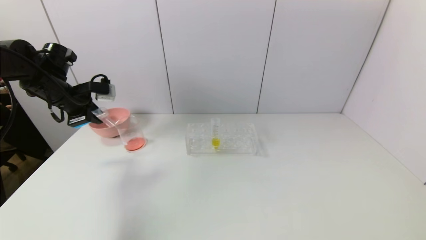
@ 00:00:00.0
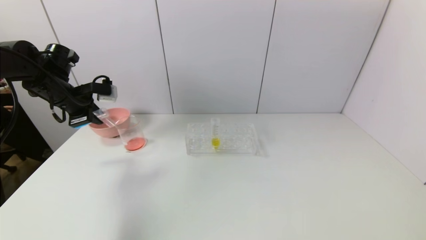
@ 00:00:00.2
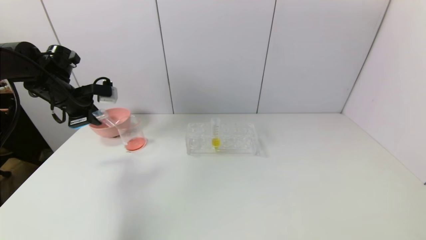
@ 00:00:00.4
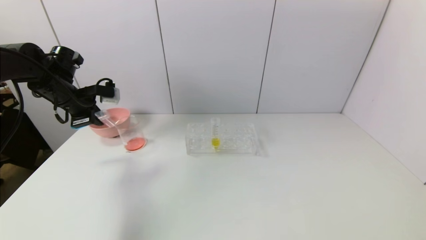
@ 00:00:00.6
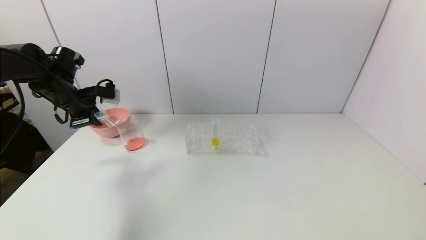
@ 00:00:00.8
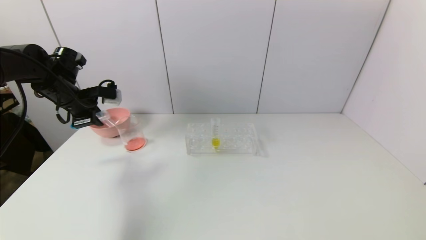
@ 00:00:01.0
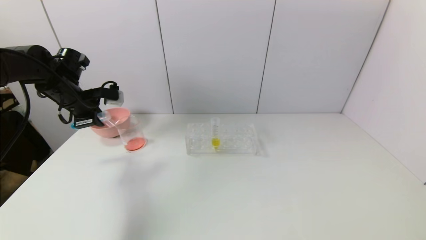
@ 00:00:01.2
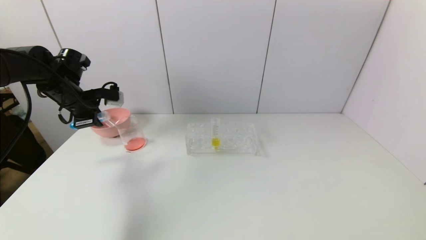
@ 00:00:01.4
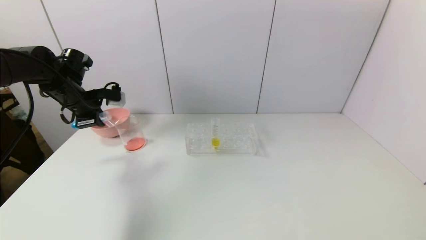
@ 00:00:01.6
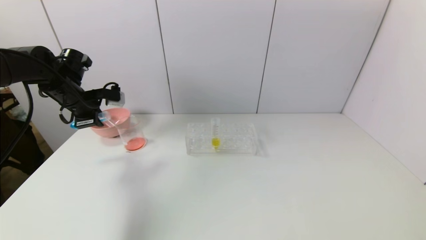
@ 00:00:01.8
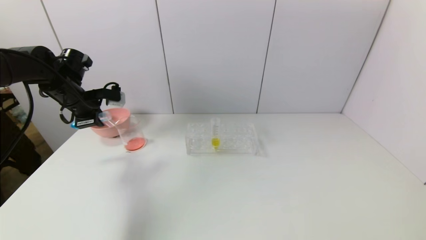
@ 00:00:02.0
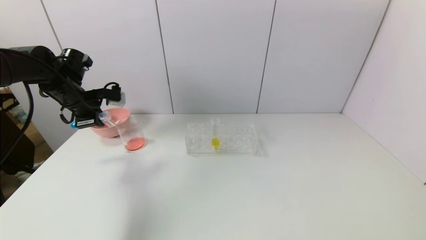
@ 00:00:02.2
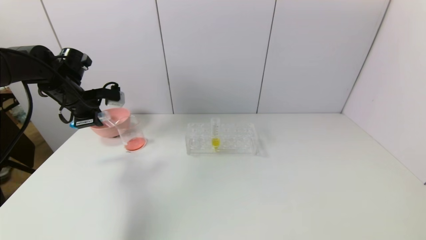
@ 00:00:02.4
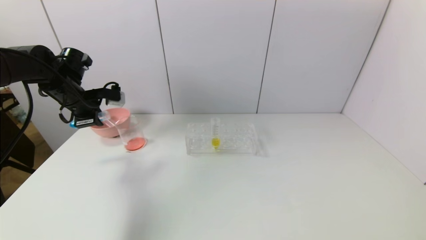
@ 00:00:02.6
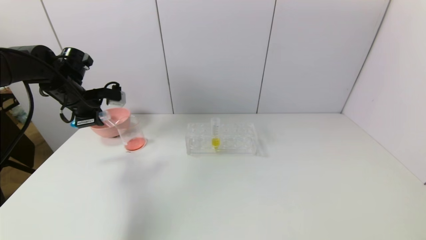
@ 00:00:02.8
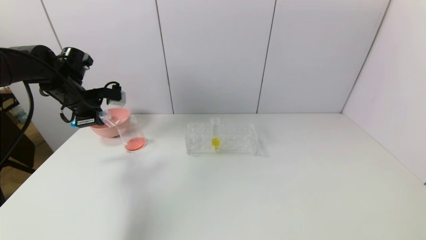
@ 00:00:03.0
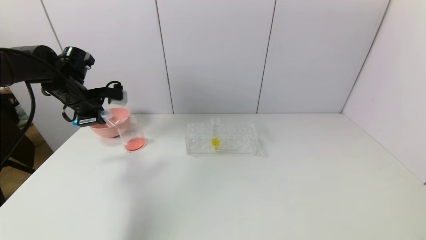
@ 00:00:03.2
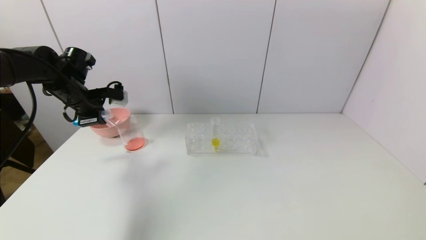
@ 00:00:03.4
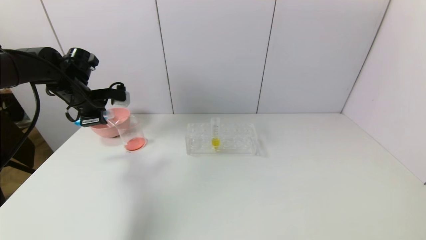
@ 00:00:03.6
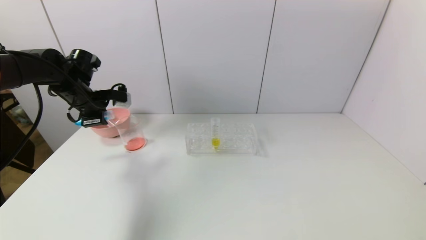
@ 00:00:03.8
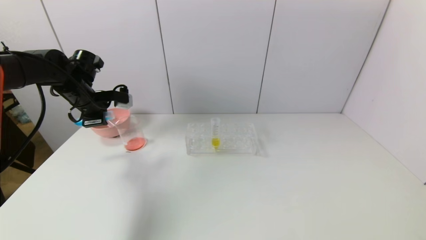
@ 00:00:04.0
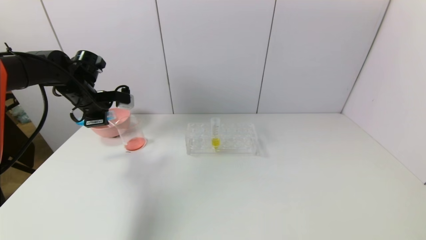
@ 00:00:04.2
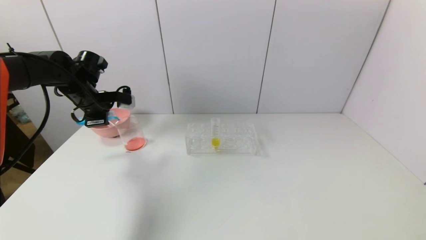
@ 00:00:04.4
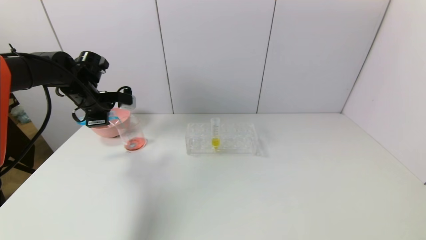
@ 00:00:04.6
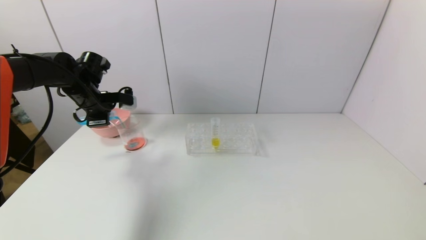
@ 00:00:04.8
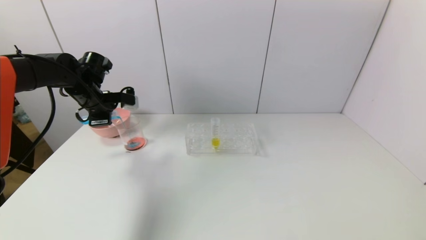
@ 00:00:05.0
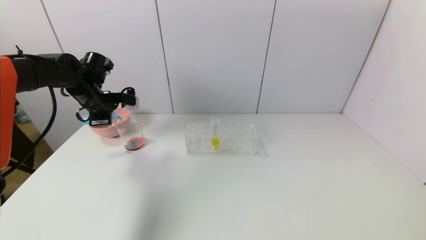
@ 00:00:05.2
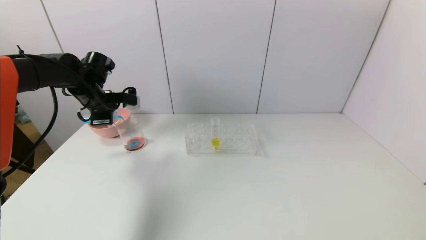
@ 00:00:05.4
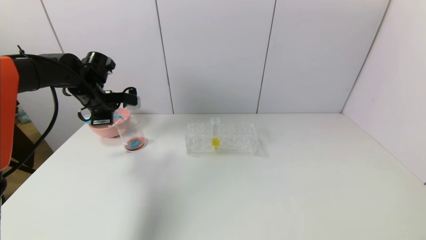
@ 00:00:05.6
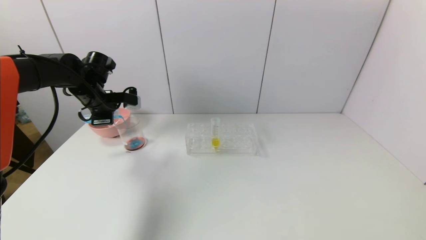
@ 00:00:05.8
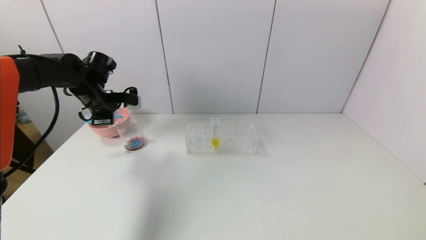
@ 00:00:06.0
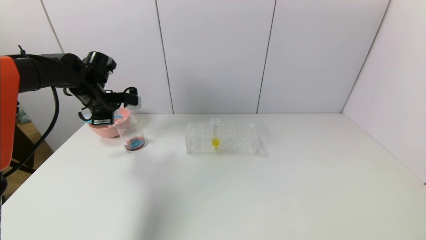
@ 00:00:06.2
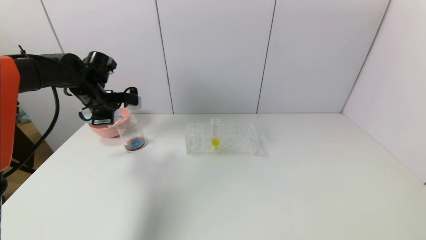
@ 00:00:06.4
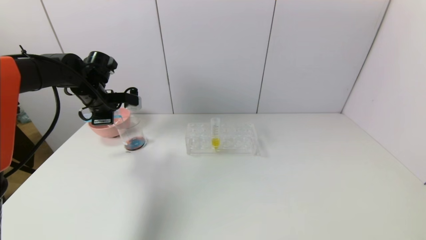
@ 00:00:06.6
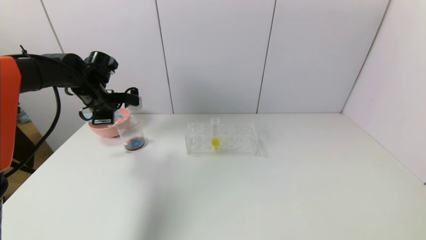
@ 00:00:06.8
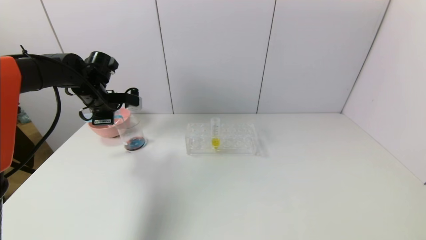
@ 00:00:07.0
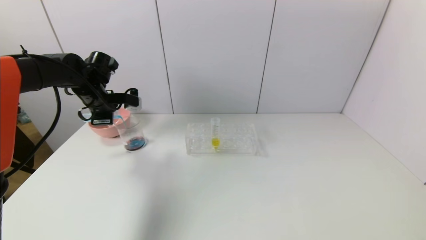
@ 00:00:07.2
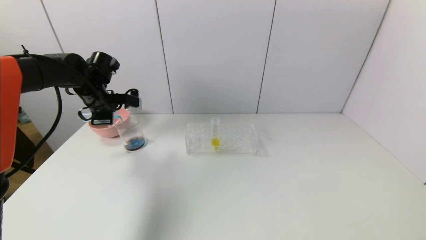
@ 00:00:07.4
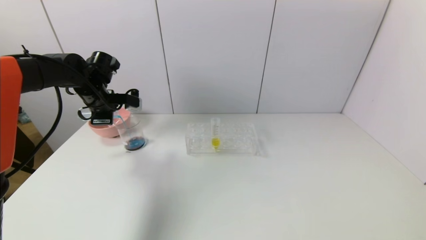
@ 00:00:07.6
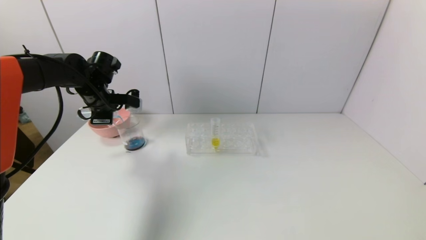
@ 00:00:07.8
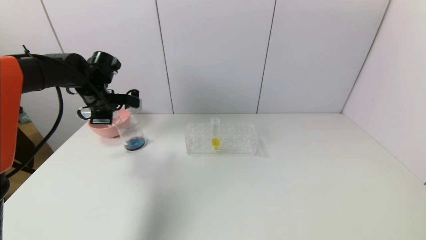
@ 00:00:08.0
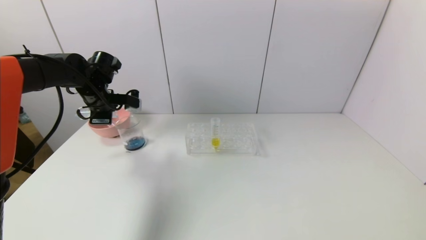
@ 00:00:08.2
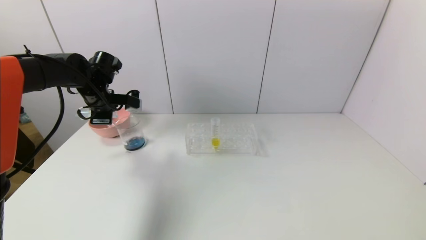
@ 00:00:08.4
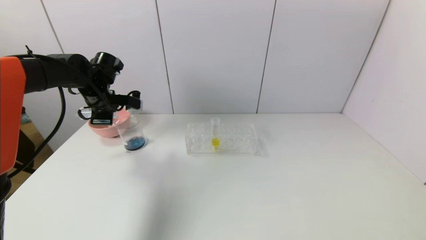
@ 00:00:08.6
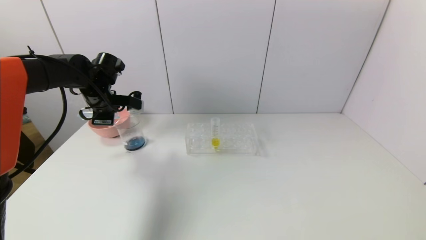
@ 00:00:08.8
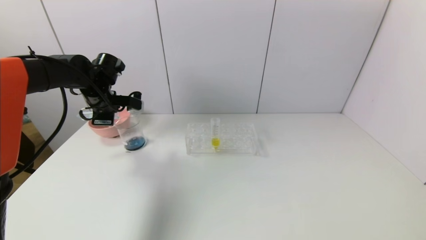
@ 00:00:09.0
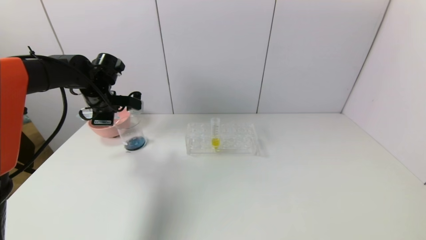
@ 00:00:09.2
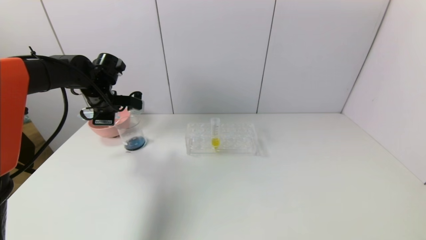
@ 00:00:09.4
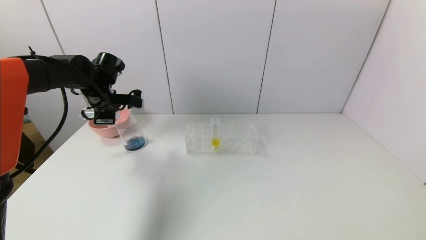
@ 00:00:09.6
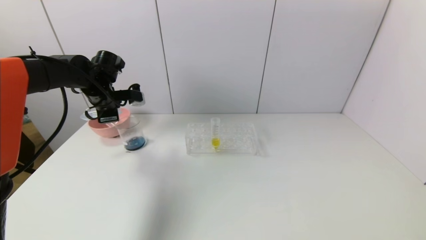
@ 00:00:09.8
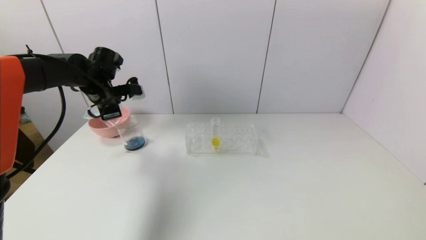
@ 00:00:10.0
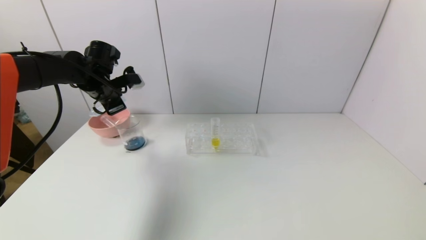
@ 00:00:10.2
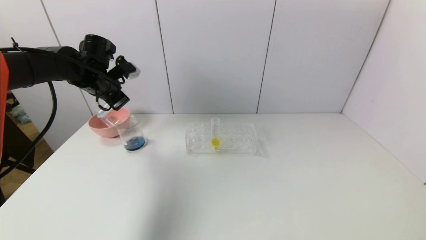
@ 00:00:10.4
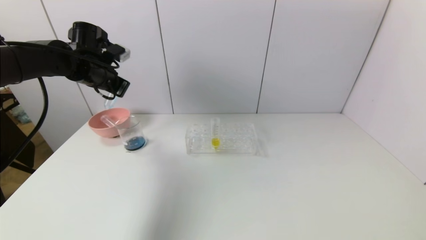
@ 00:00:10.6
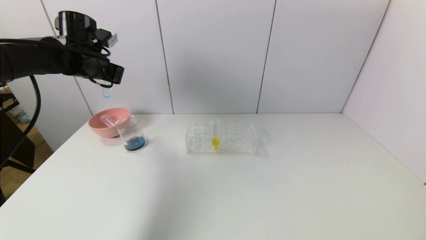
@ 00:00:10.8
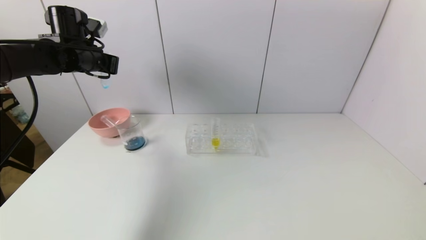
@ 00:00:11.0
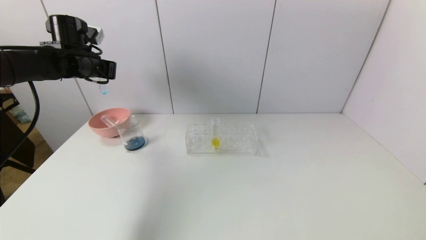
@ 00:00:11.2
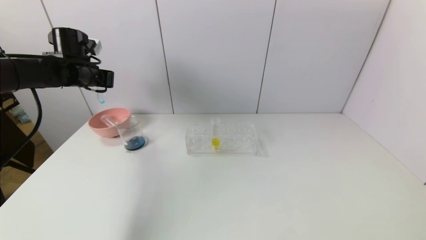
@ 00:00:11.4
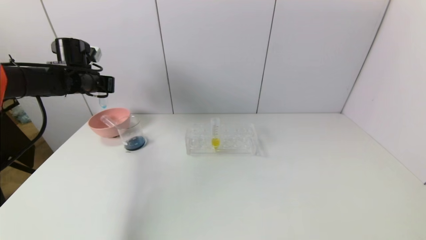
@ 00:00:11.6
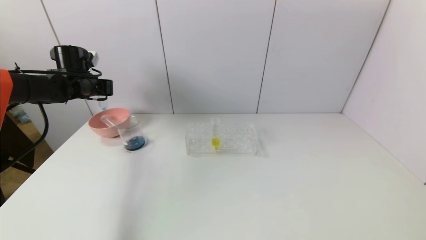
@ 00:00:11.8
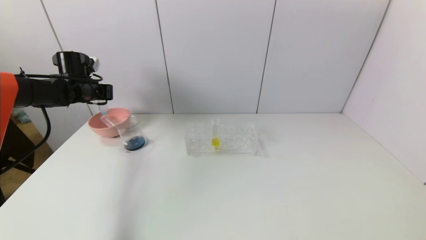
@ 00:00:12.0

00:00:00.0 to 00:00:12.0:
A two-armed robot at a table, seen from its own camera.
Task of the whole recording: pick up the test tube with red pigment and the test tube with blue pigment by grippers and pour them into the container.
Step, 00:00:00.0 to 00:00:10.6: Pour the blue reagent into the graduated cylinder with the left gripper.
00:00:00.0 to 00:00:01.6: The grippers stay close to where they were, moving slightly.
00:00:01.6 to 00:00:03.0: Both grippers stay put.
00:00:03.0 to 00:00:07.6: The grippers move only a little.
00:00:07.6 to 00:00:09.0: Both grippers stay put.
00:00:10.4 to 00:00:12.0: The left gripper heads to the left, covering approximately 10 cm.

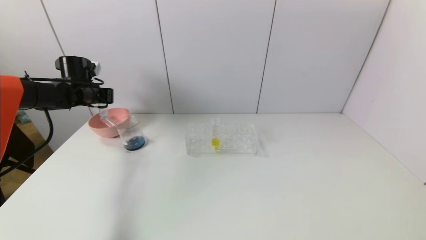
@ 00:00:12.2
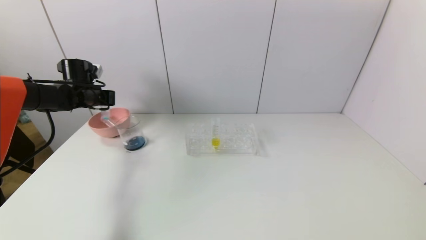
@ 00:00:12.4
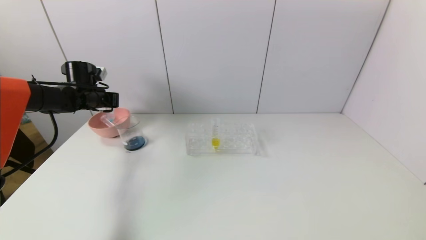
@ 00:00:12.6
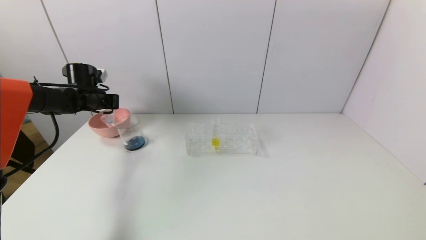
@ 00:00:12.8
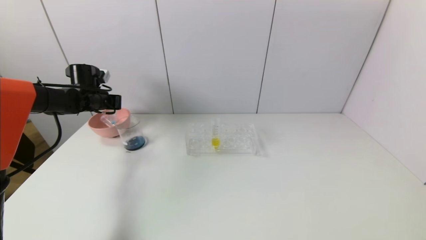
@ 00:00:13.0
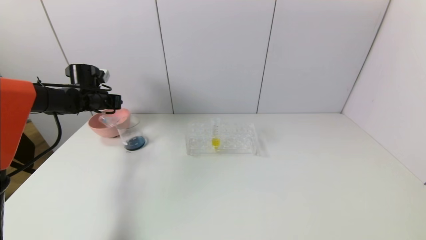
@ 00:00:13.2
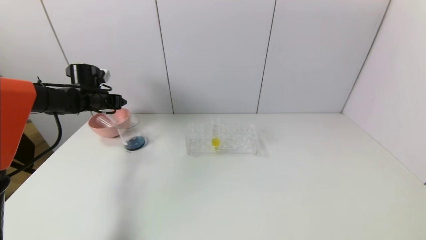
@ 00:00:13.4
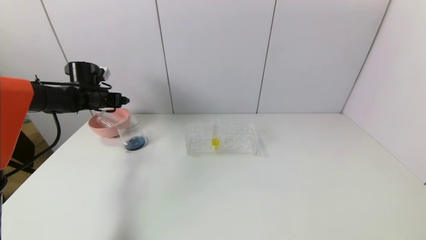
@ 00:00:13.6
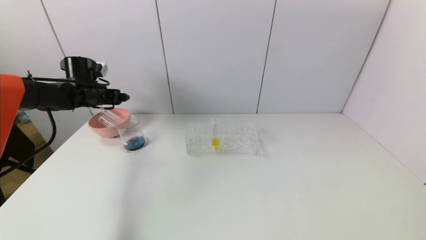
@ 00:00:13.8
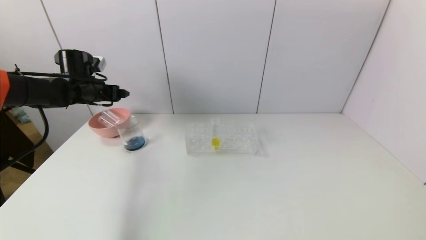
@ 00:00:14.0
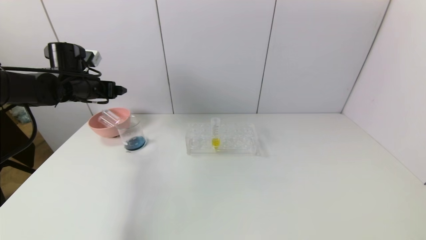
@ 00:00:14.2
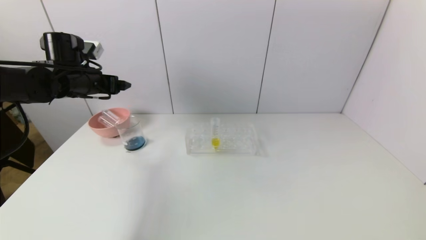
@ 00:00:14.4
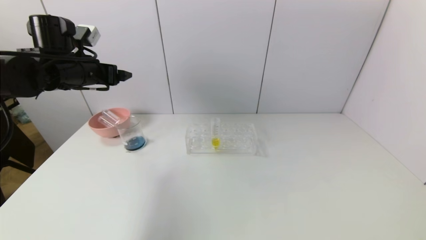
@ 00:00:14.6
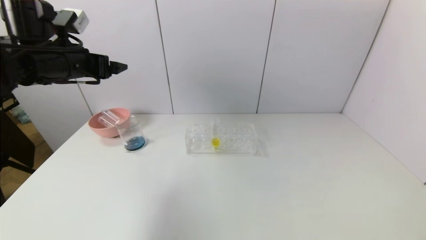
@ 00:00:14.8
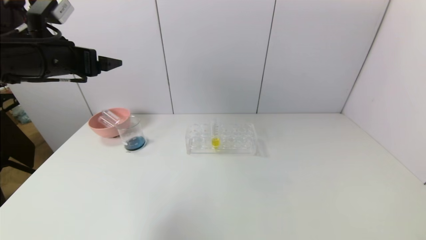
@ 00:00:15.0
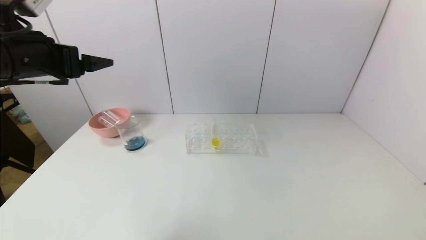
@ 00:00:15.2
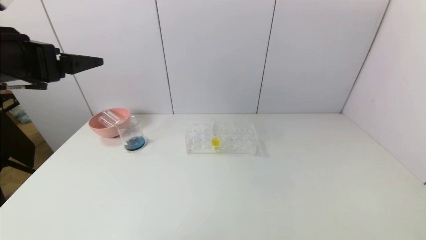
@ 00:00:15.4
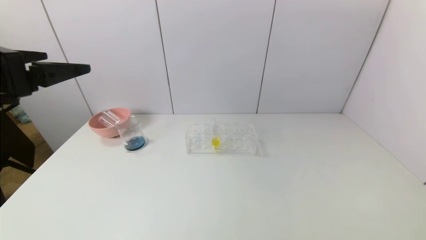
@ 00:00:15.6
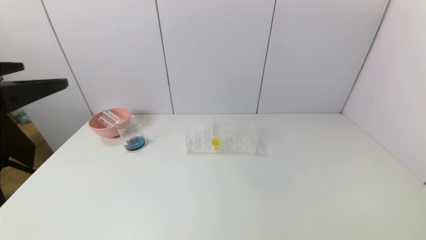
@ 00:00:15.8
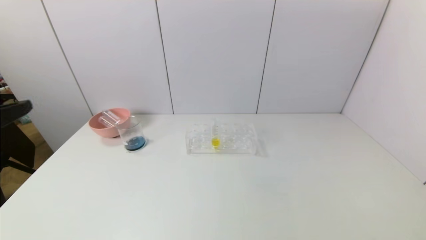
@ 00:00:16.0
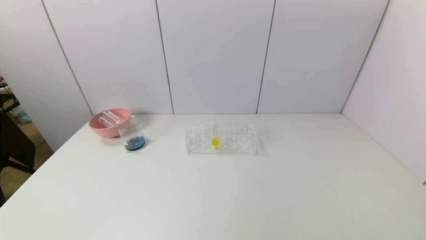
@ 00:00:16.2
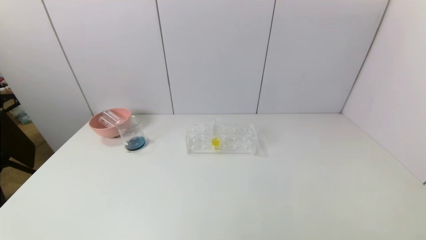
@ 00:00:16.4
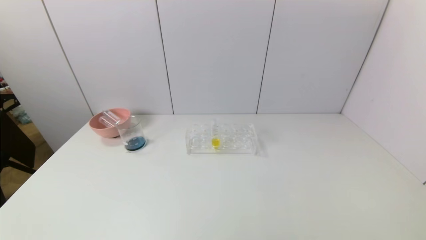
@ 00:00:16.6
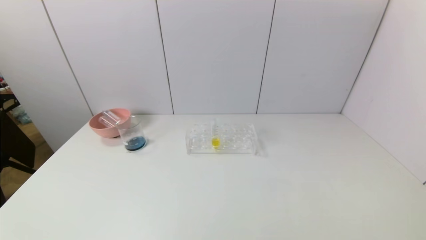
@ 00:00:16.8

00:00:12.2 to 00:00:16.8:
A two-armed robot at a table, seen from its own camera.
Task of the whole recording: pick up the test tube with red pigment and the test tube with blue pigment by grippers and pour them into the container.
Step, 00:00:12.2 to 00:00:14.6: Place the test tube into the bowl with the left gripper.
00:00:12.2 to 00:00:13.8: The left gripper opens up.
00:00:13.8 to 00:00:15.2: The left gripper shifts about 25 cm backward and upward.
00:00:15.2 to 00:00:16.8: The left gripper heads backward and downward, covering approximately 35 cm.
